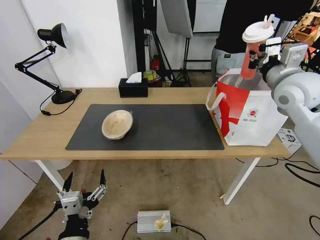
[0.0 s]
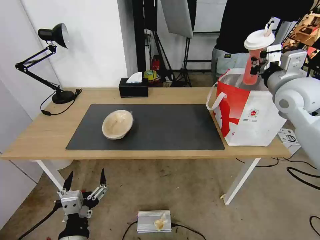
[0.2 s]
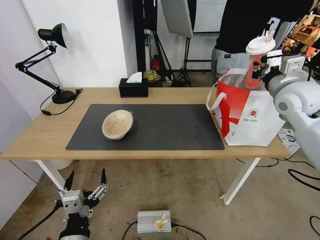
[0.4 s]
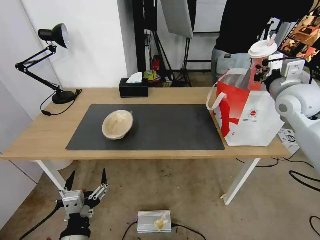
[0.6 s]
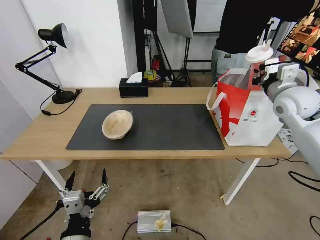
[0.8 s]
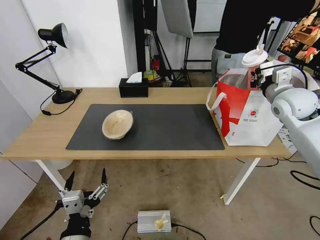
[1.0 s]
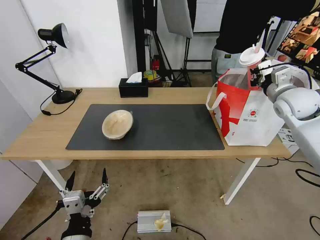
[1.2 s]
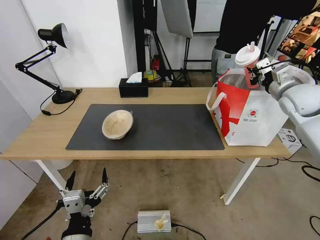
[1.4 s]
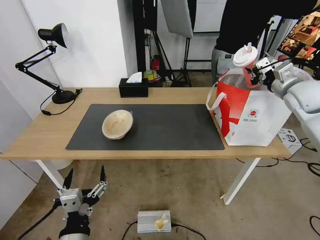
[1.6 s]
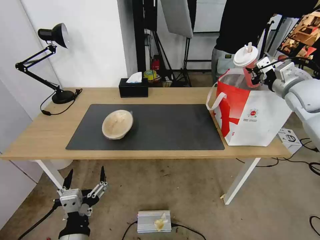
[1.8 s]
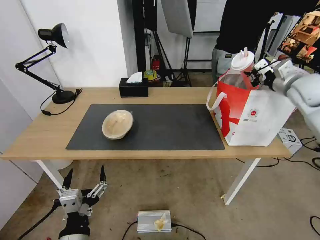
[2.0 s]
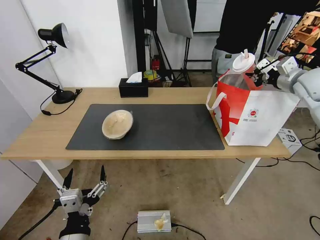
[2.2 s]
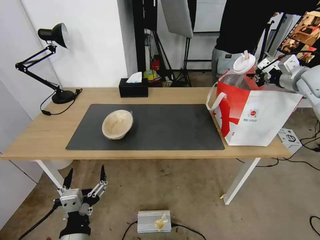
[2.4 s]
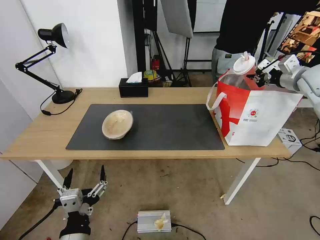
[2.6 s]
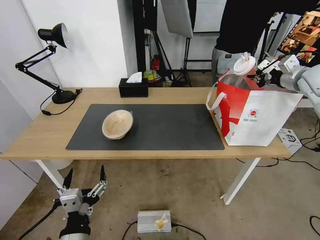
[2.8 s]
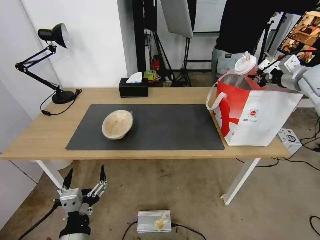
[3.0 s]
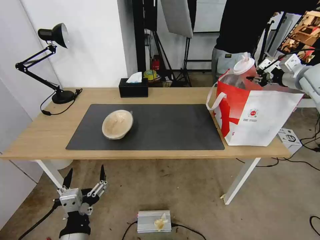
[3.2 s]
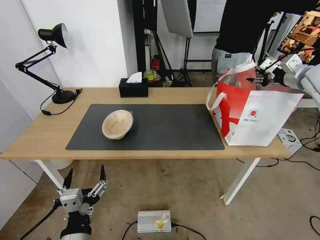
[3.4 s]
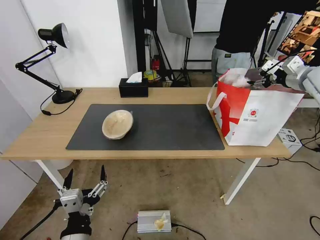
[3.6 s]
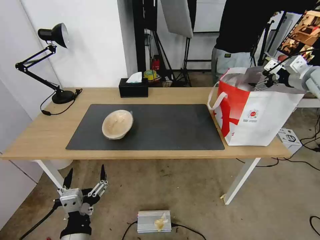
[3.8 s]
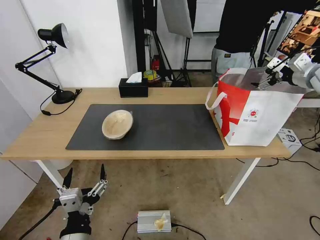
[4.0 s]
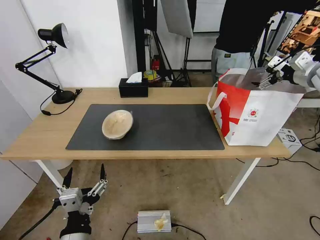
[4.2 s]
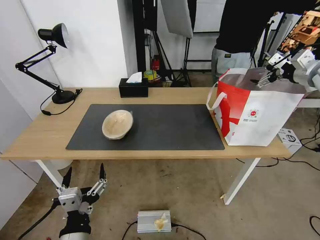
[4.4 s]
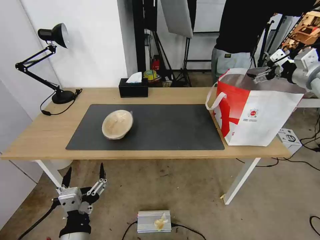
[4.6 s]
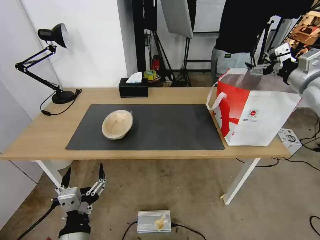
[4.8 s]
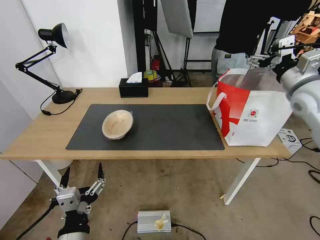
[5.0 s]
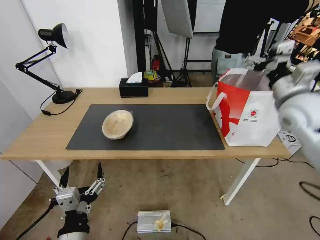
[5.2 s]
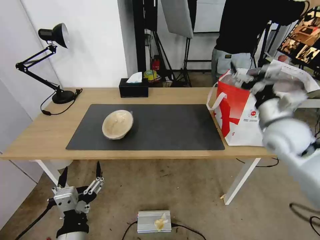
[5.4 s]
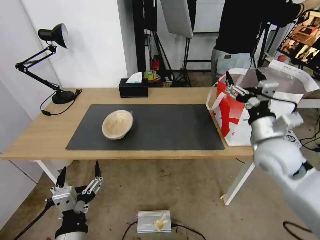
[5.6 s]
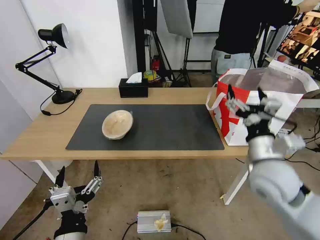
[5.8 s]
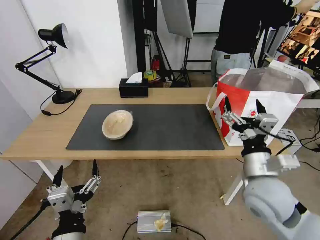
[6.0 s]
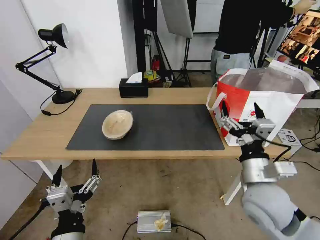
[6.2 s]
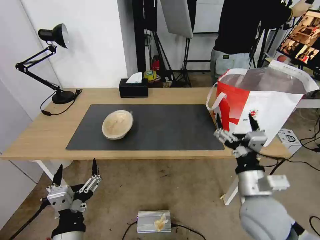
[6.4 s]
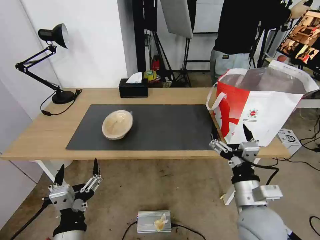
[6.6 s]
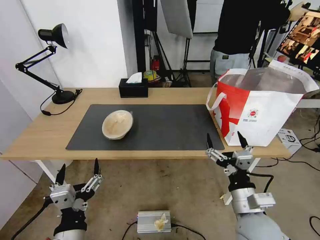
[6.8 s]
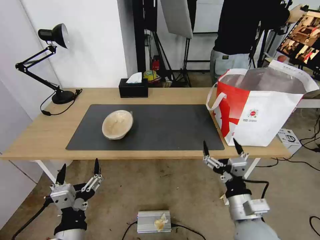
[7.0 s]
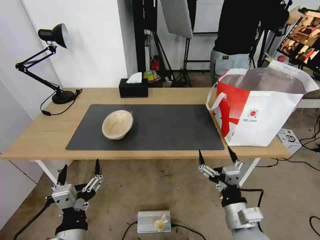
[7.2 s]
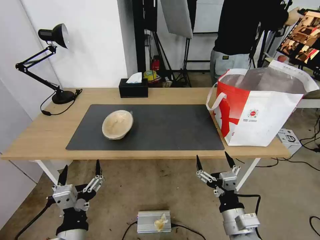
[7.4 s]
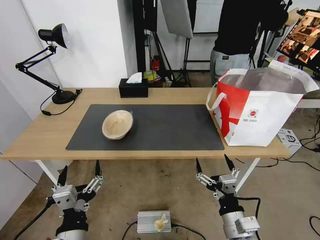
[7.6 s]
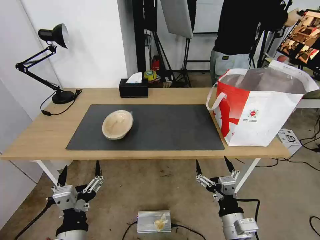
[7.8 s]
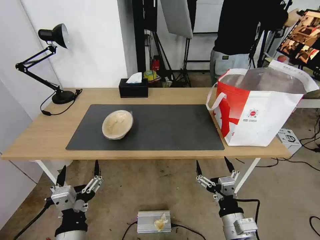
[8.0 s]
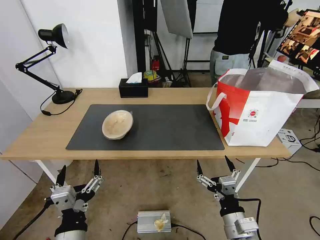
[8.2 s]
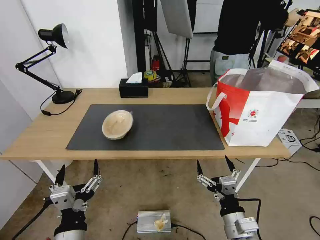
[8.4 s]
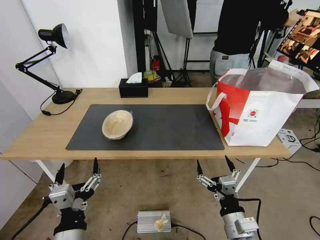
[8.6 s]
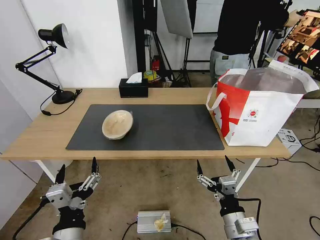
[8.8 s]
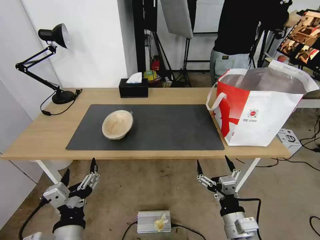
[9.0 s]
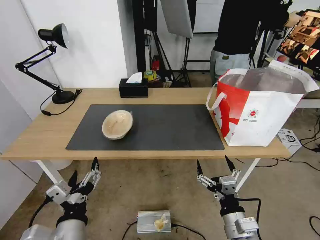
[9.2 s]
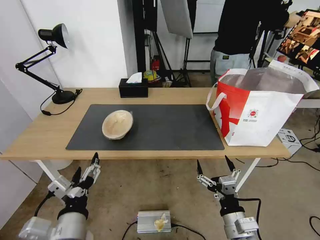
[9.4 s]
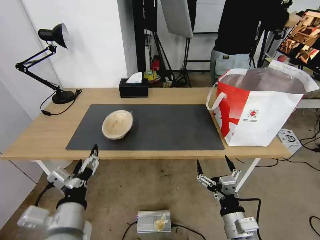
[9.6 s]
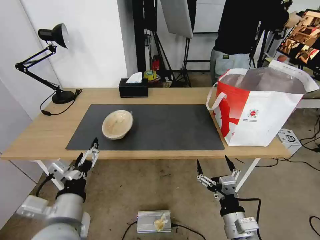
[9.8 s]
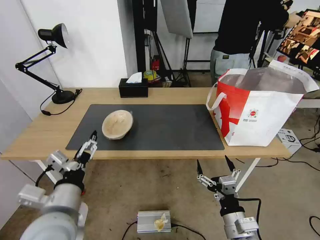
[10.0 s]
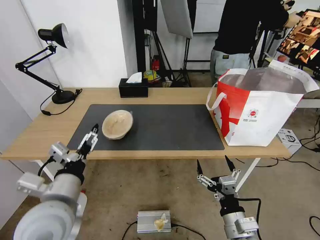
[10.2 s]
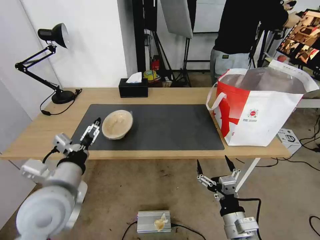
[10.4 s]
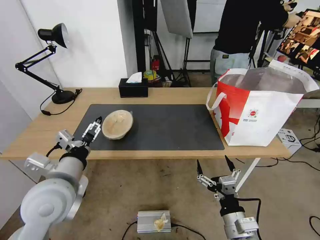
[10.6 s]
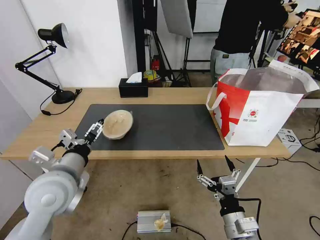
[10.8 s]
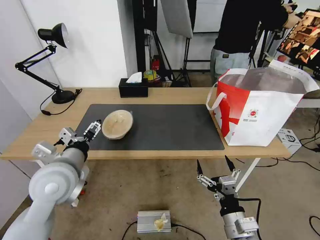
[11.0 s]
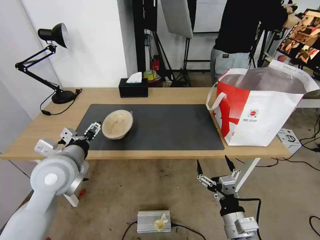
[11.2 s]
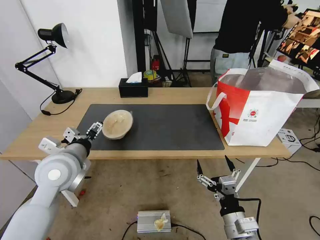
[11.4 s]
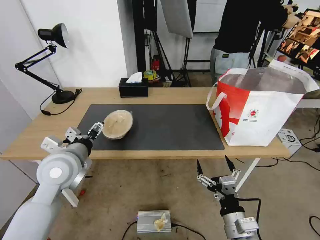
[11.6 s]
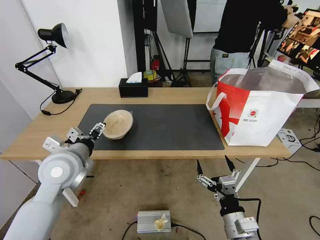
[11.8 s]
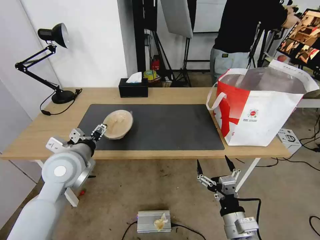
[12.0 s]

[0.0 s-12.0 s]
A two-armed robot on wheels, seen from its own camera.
Task of the whole recording: Pick up the trash from the table and place it into the takeout bag.
0.0 to 1.6 s: The right gripper heads to the right and forward, covering roughly 10 cm.
1.6 to 3.0 s: The right gripper shifts by some 5 cm.
3.0 to 4.4 s: The right gripper opens its fingers.
4.4 to 6.0 s: The right gripper goes some 40 cm backward, to the left and downward.
6.0 to 7.6 s: The right gripper heads downward and backward, covering some 15 cm.
7.6 to 9.0 s: The grippers make only small movements.
9.0 to 10.4 s: The left gripper travels forward and upward by some 15 cm.
10.4 to 12.0 s: The left gripper moves forward, about 10 cm.

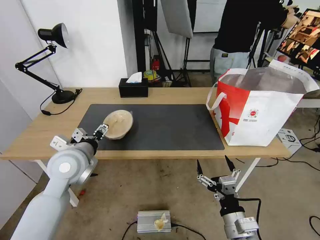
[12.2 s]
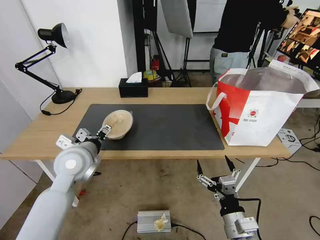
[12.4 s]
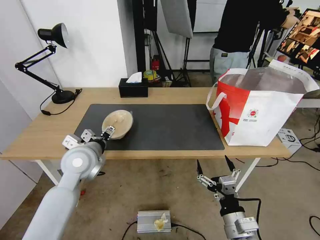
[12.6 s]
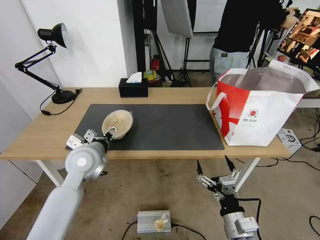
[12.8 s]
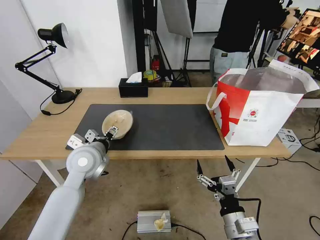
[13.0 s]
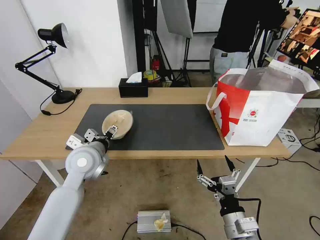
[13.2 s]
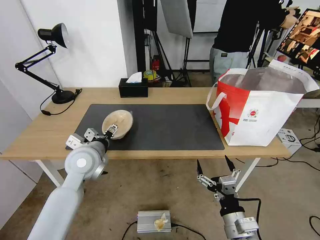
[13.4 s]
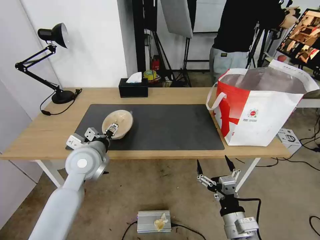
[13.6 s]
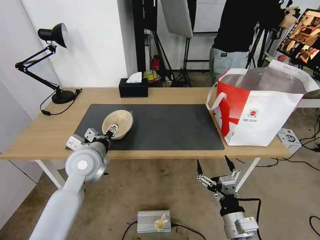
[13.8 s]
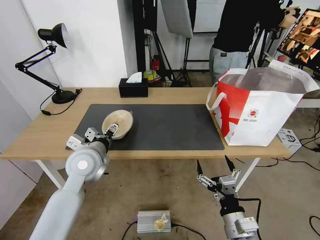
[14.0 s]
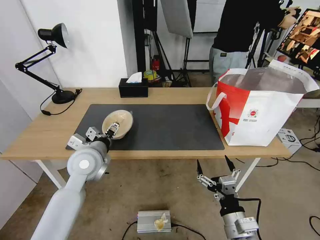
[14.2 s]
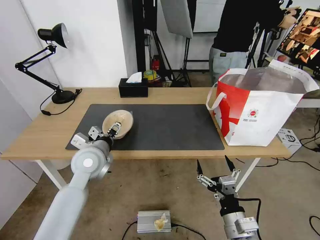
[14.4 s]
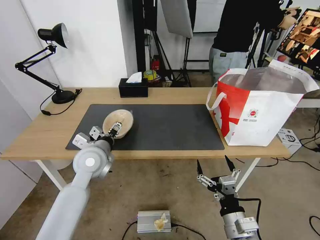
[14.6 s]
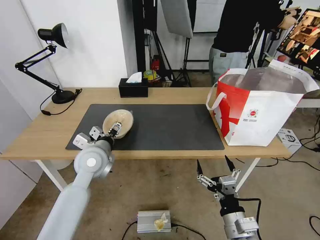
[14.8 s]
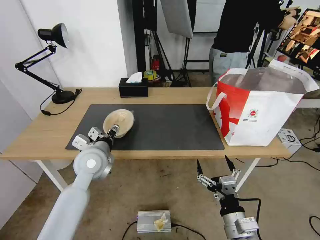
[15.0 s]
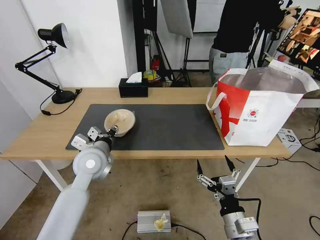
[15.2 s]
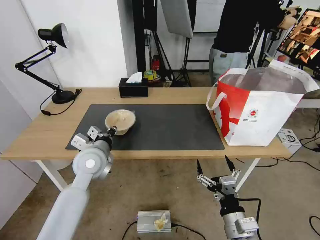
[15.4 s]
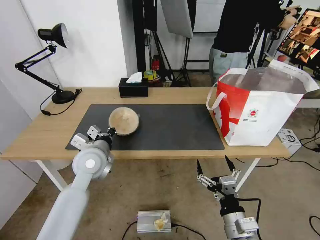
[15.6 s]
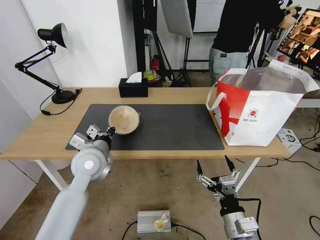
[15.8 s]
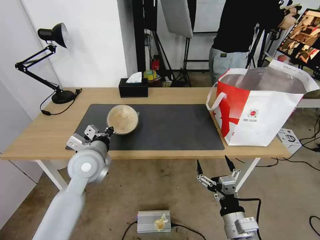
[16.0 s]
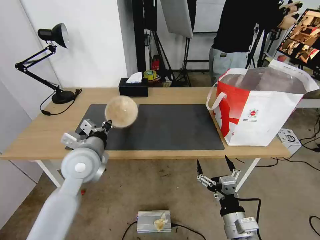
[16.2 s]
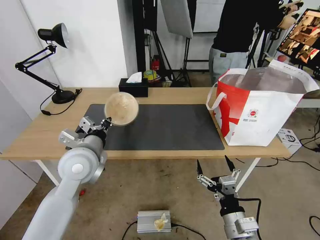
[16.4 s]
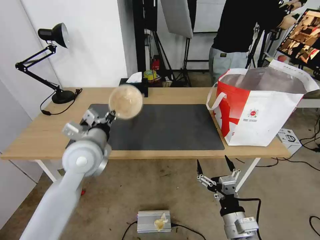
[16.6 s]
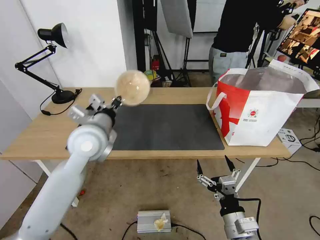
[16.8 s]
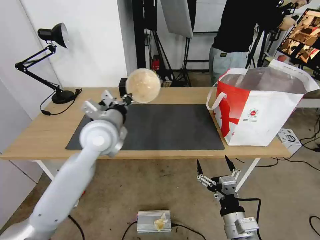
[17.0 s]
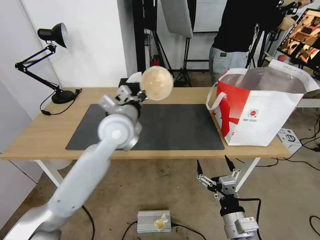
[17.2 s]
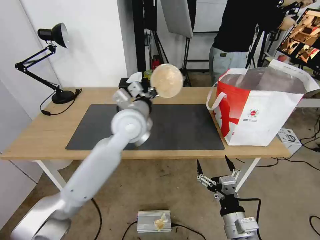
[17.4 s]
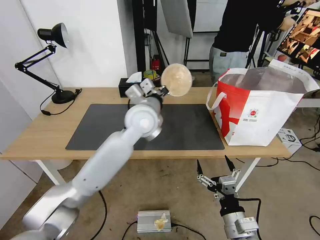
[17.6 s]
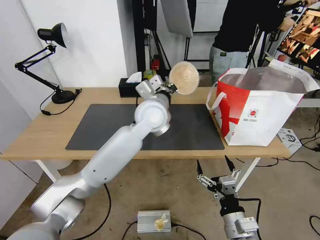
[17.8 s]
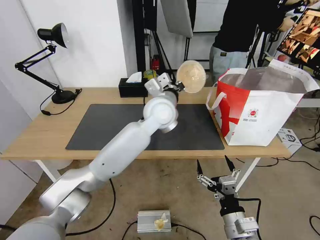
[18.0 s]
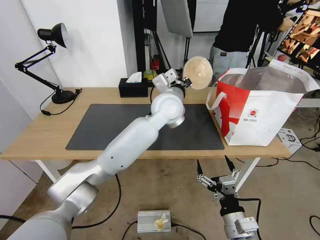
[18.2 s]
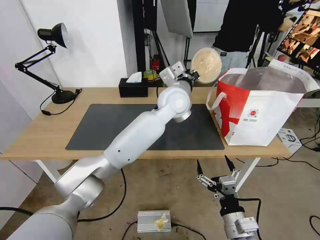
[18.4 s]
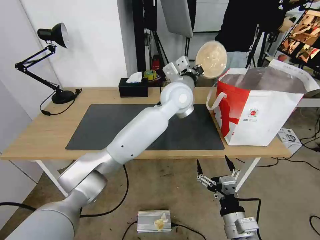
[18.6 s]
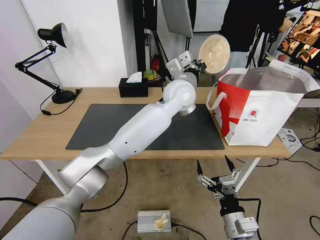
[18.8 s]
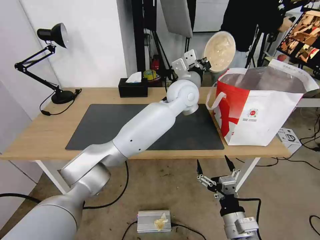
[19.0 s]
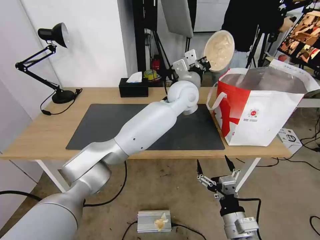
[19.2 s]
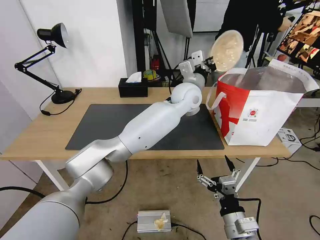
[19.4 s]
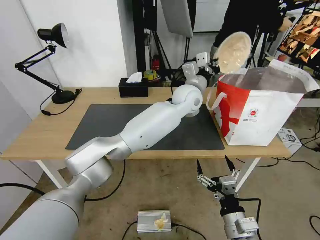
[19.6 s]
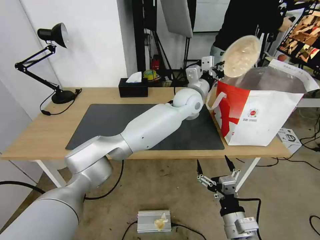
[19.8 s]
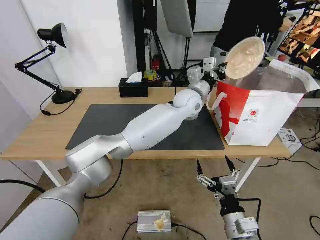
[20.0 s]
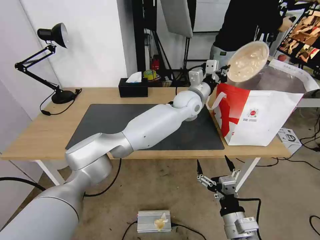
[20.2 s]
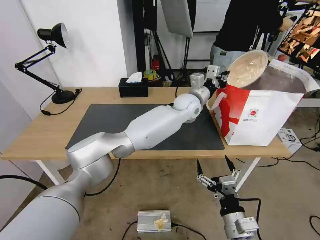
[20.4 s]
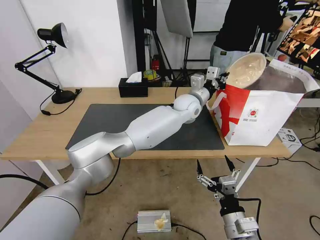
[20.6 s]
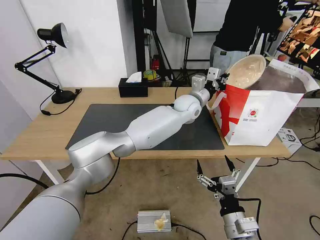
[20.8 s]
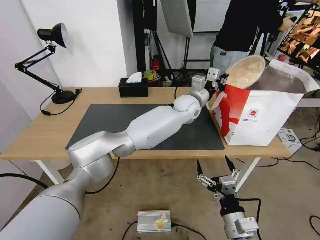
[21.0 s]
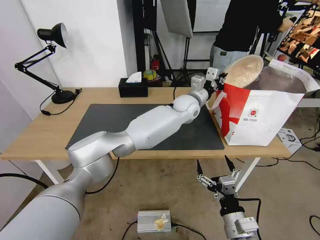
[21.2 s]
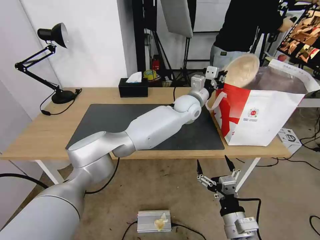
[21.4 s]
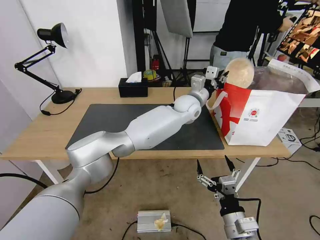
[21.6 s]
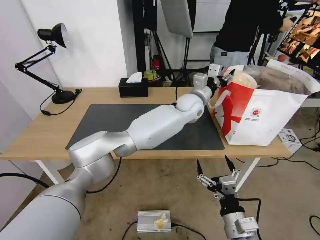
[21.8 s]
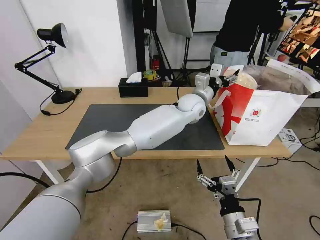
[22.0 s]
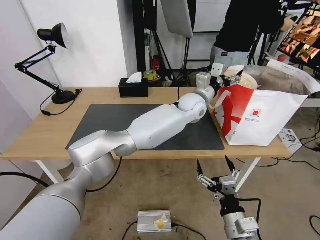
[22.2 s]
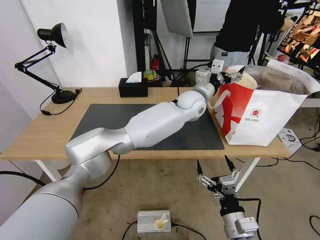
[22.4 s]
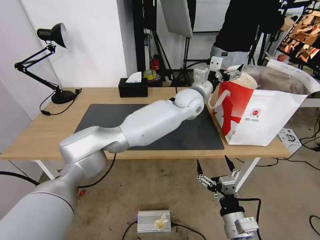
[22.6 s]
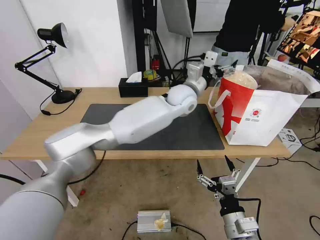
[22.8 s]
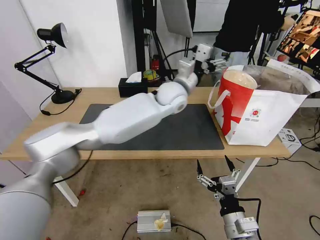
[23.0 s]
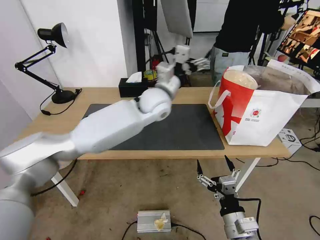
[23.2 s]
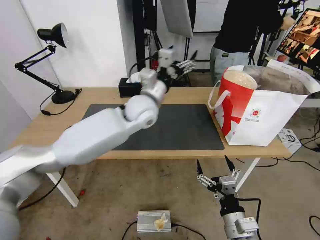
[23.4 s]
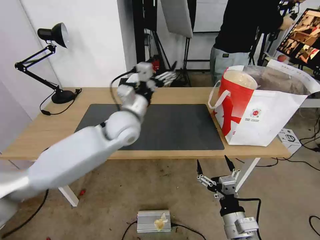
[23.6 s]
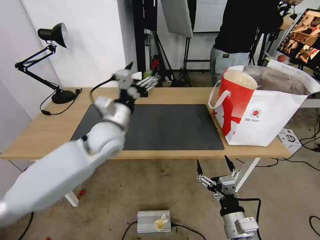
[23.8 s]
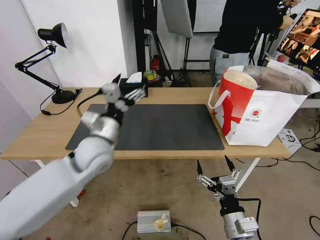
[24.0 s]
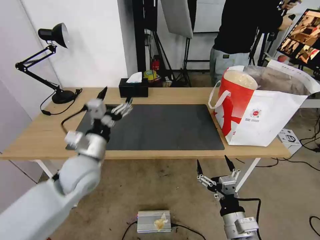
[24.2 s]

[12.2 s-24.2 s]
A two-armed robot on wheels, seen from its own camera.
Task of the whole recording: Pick up the trash from the table and place it into the takeout bag.
12.2 to 13.8 s: The grippers move only a little.
13.8 to 15.2 s: The left gripper closes.
15.2 to 16.6 s: The left gripper shifts some 5 cm upward, and closes up.
16.6 to 18.2 s: The left gripper heads to the right and forward, covering roughly 25 cm.
18.2 to 19.8 s: The left gripper travels to the right and forward by about 10 cm.
19.8 to 21.2 s: The grippers make only small movements.
21.2 to 22.6 s: The left gripper opens its fingers.
22.6 to 24.2 s: The left gripper is displaced to the left and backward by about 40 cm.
